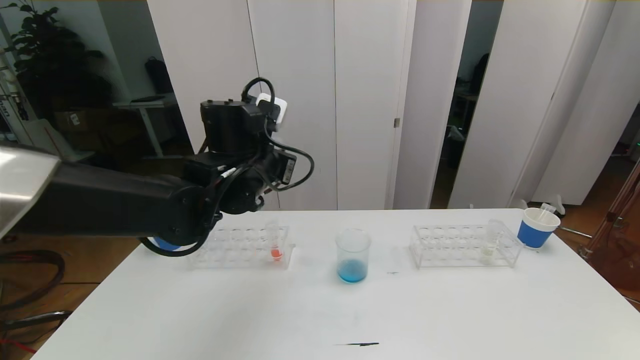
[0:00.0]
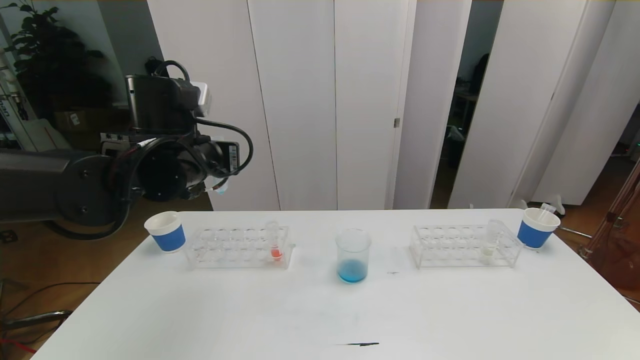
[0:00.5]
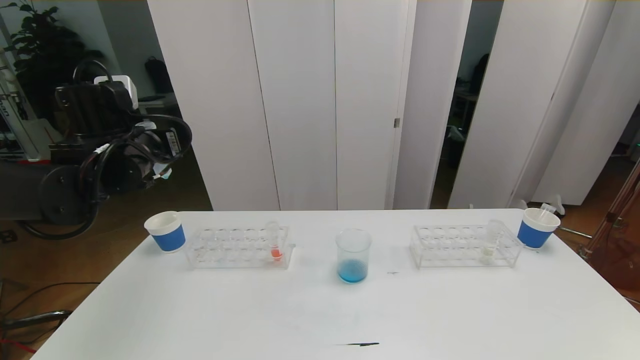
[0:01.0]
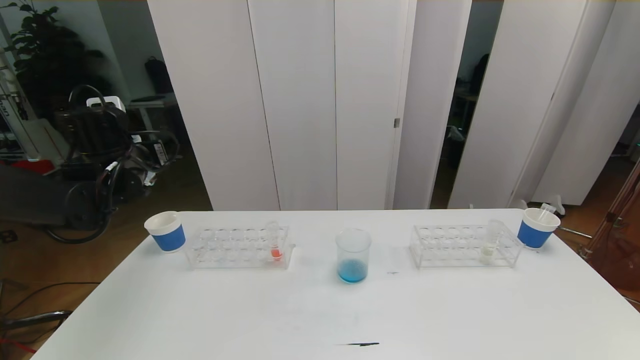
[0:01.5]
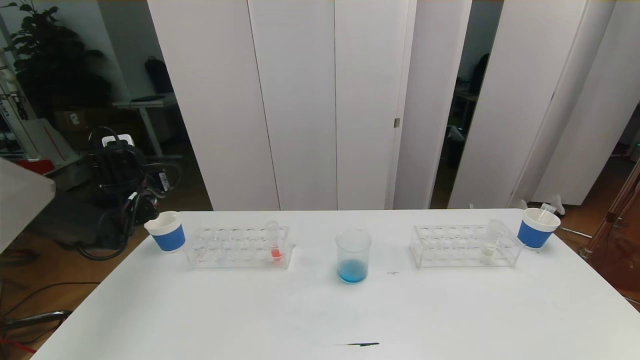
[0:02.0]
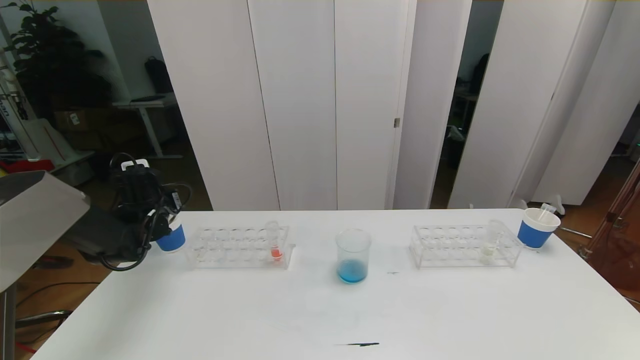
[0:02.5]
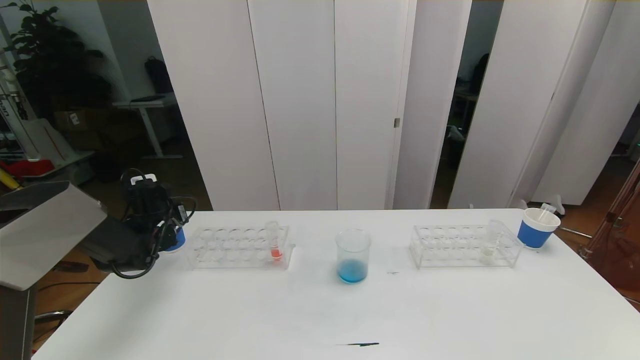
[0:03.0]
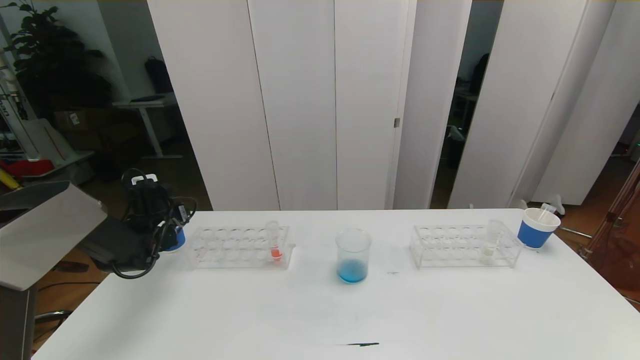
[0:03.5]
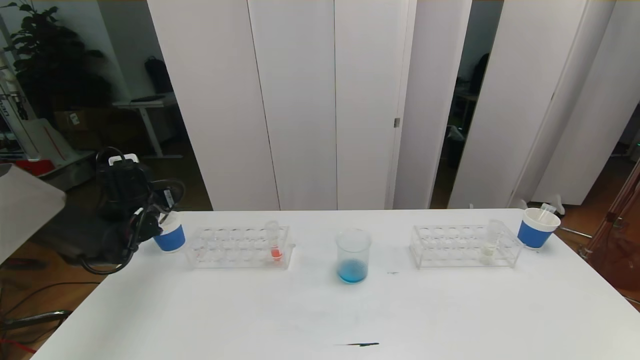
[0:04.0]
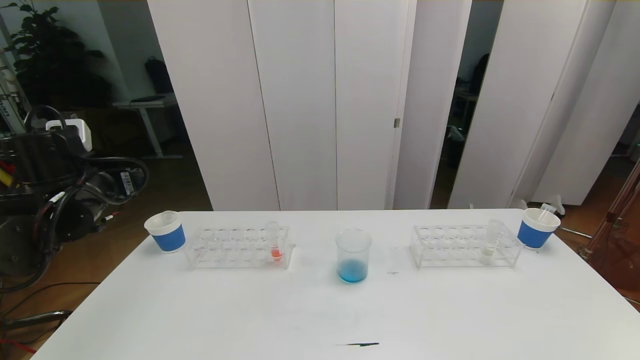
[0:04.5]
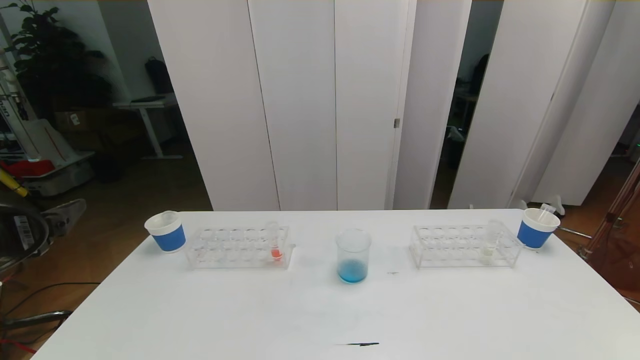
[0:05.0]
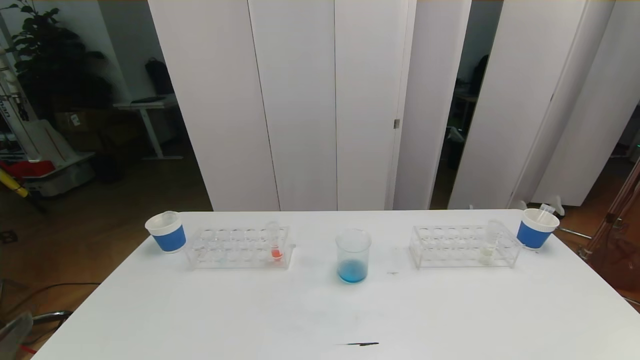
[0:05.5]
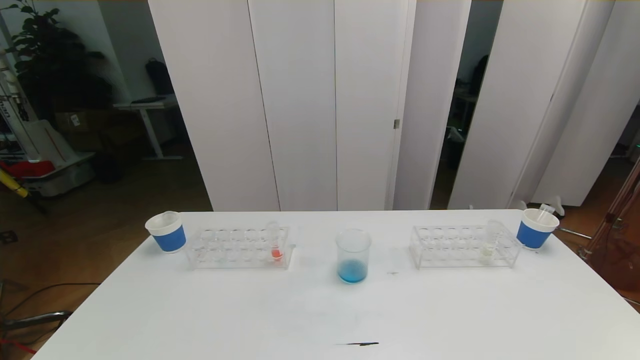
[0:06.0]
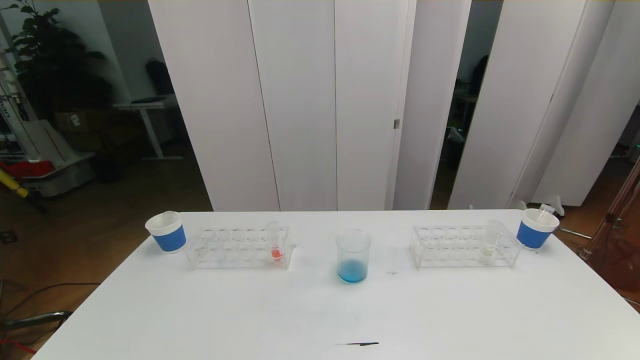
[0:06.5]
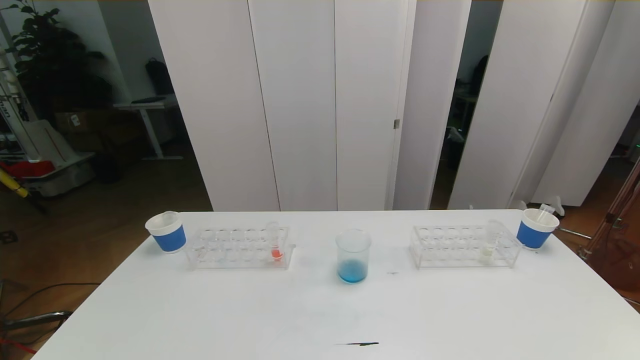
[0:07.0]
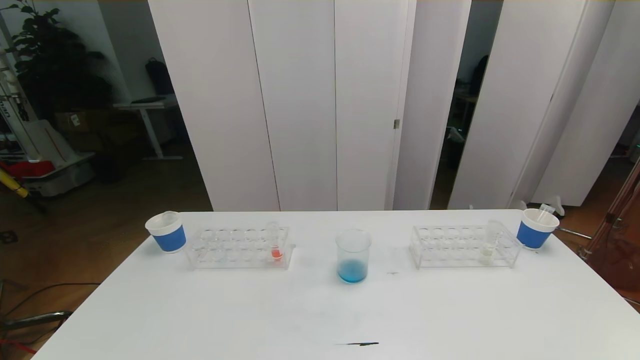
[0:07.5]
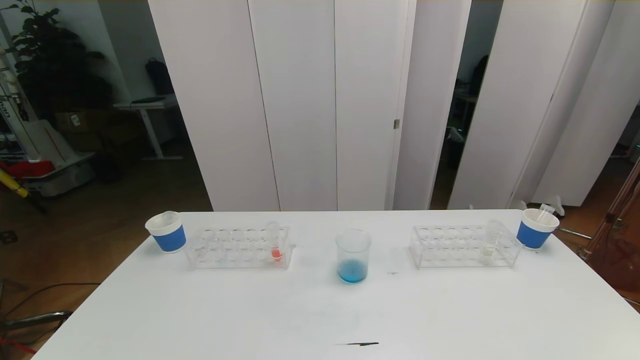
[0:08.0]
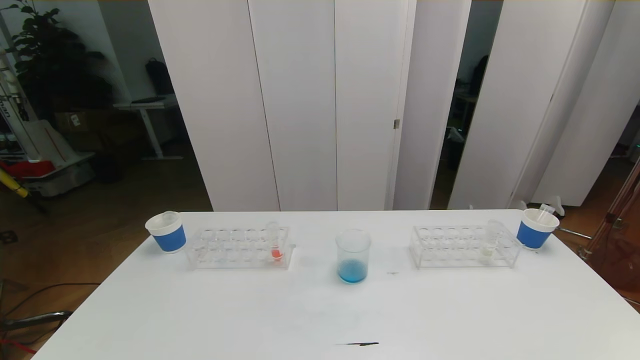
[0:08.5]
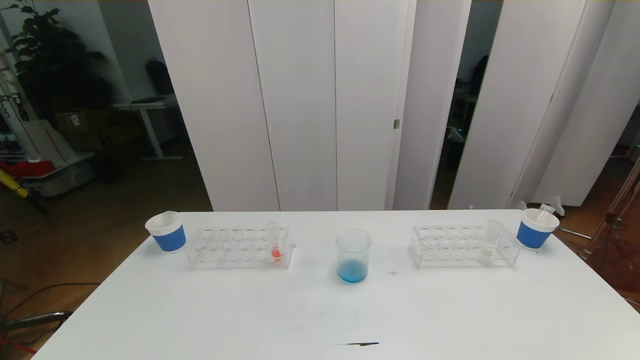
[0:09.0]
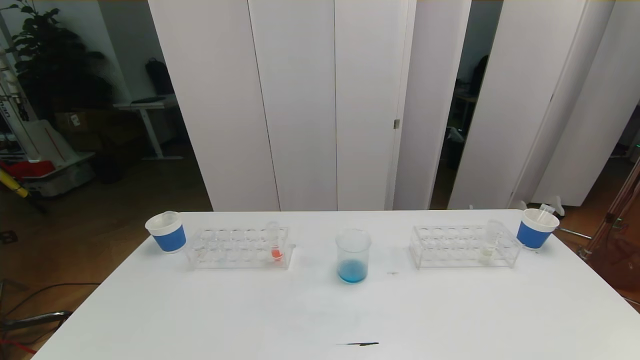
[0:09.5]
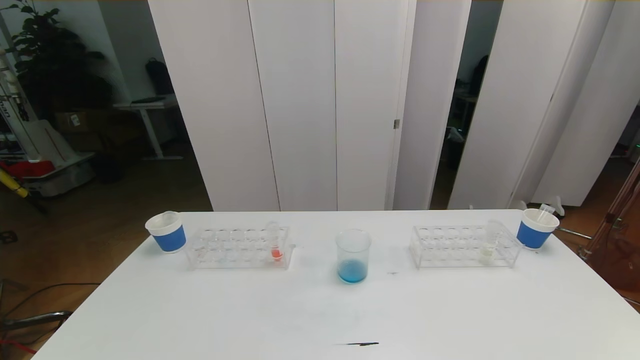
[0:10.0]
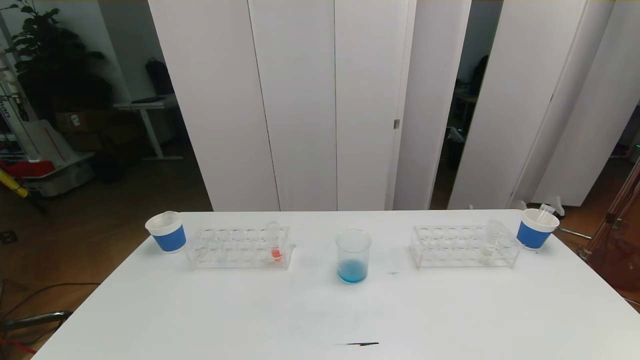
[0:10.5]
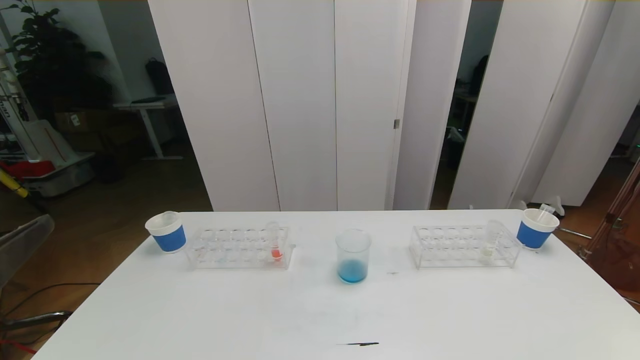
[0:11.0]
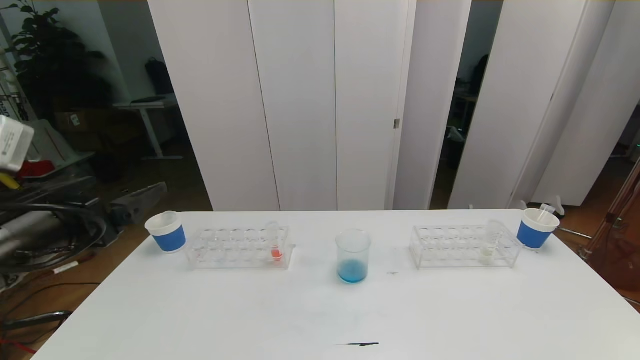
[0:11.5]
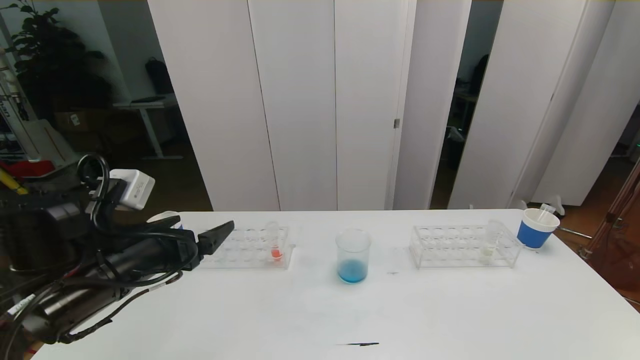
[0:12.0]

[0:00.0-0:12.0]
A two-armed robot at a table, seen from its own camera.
Task of the whole recording: pick up the test tube with red pigment the test tube with blue pigment and the test tube with white pigment by grippers and pour them into the beaker.
Step, 0:00.0 to 0:06.5: Pour the blue reagent into the graduated cylinder and place the test tube into the paper cup.
0:00.0 to 0:02.0: The left gripper heads to the left, covering about 25 cm.
0:02.0 to 0:04.0: The left gripper reaches approximately 10 cm downward, then returns, and opens.
0:04.0 to 0:06.0: The left gripper travels backward by approximately 40 cm.
0:08.0 to 0:10.0: Both grippers stay put.
0:10.0 to 0:12.0: The left gripper travels forward by about 25 cm.

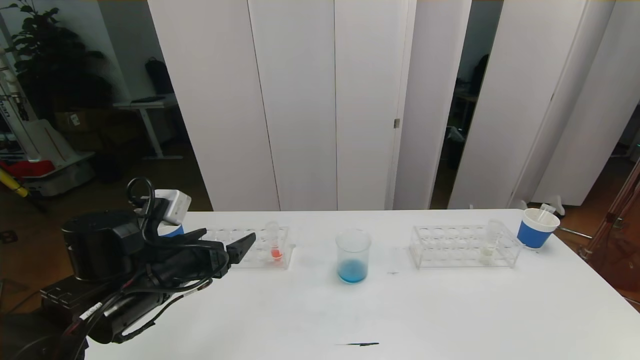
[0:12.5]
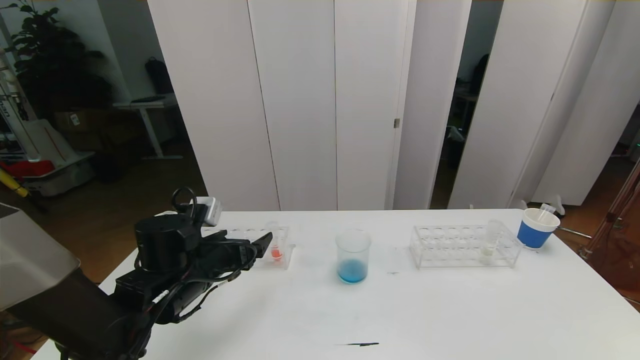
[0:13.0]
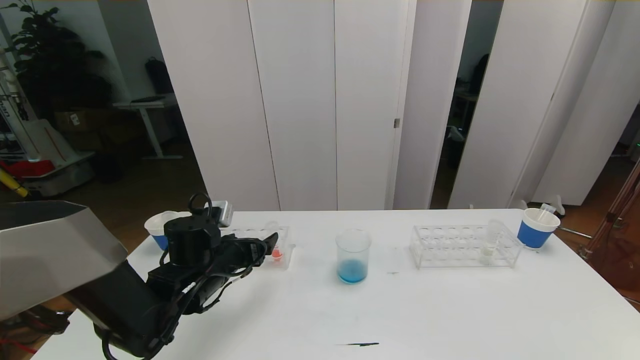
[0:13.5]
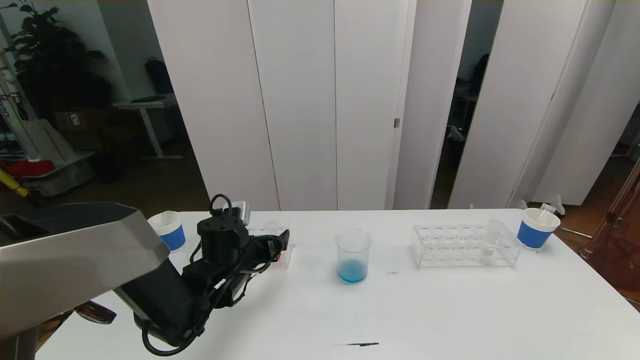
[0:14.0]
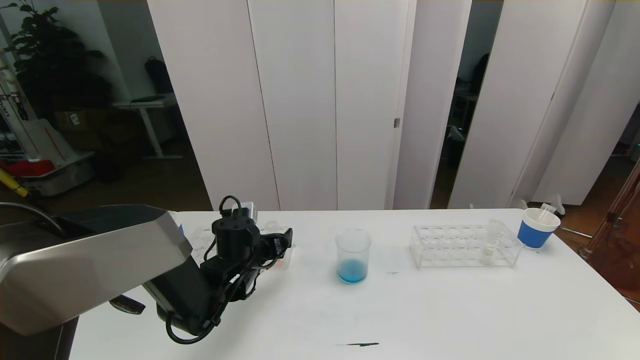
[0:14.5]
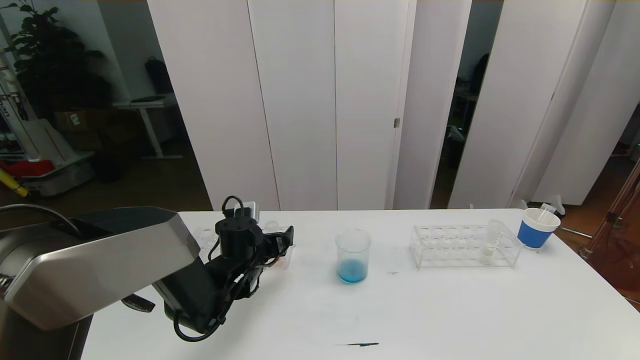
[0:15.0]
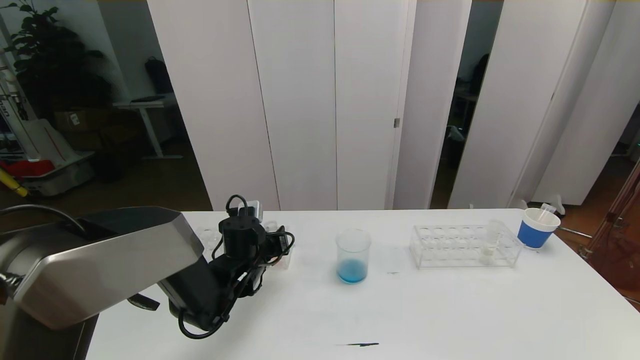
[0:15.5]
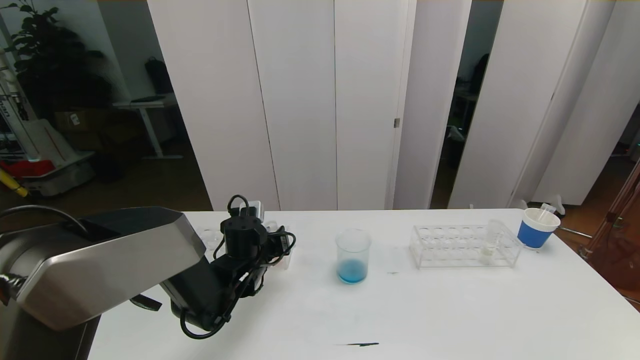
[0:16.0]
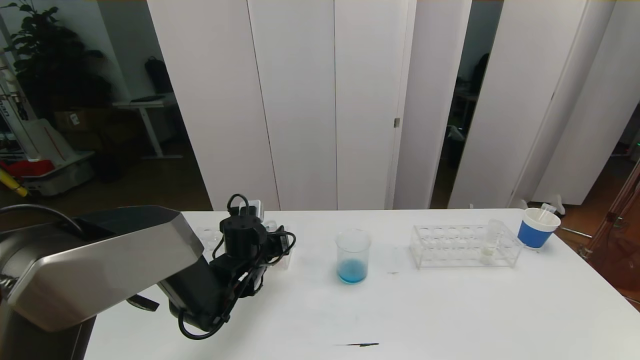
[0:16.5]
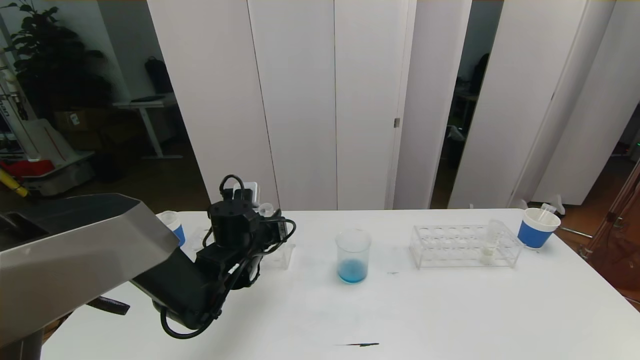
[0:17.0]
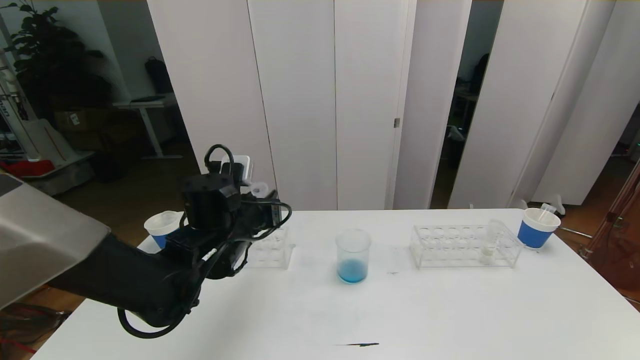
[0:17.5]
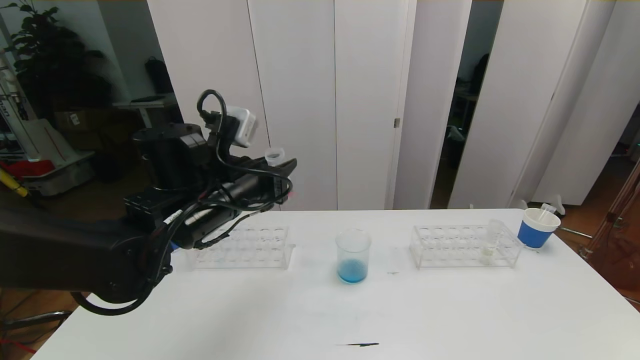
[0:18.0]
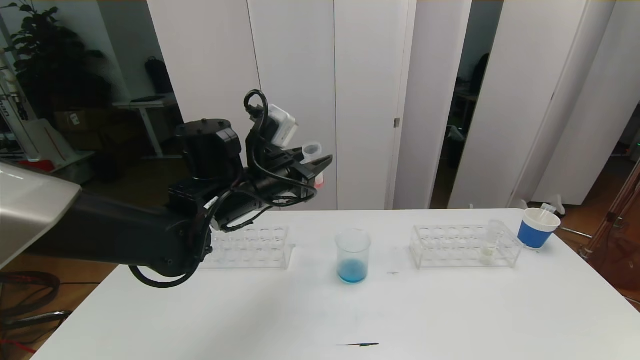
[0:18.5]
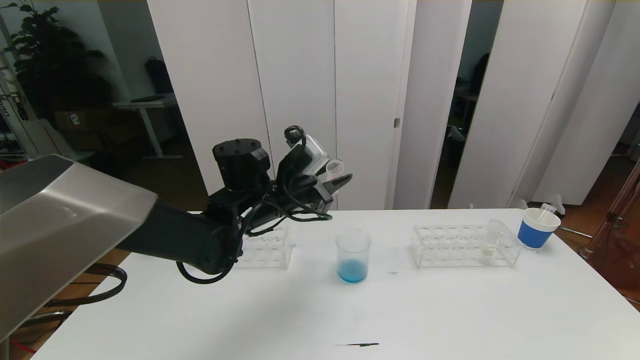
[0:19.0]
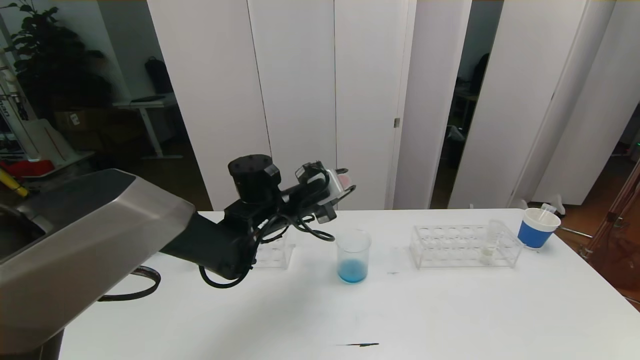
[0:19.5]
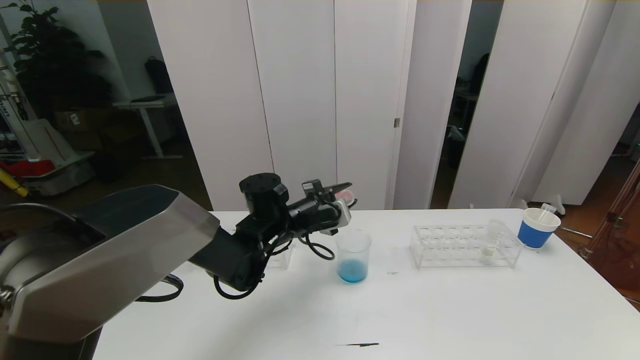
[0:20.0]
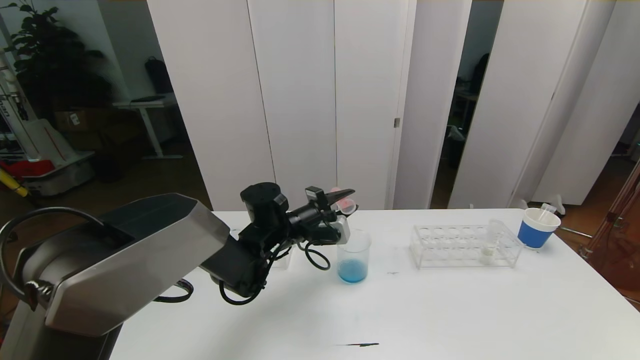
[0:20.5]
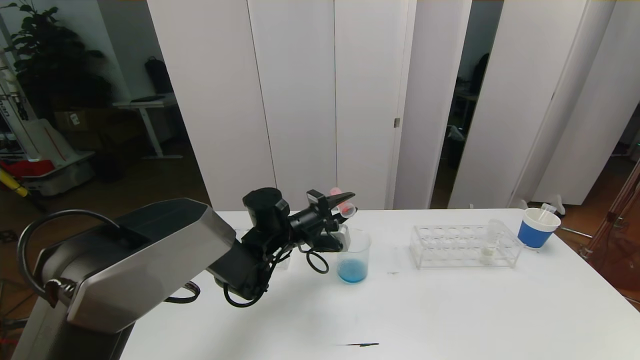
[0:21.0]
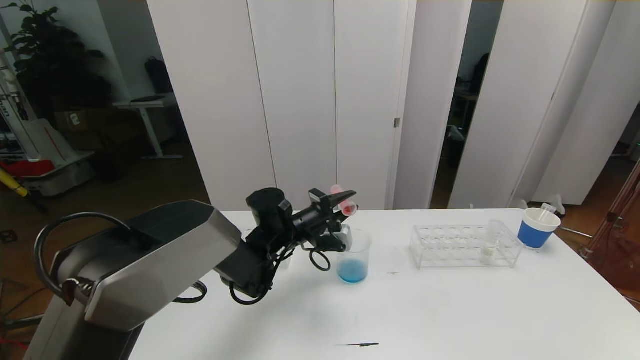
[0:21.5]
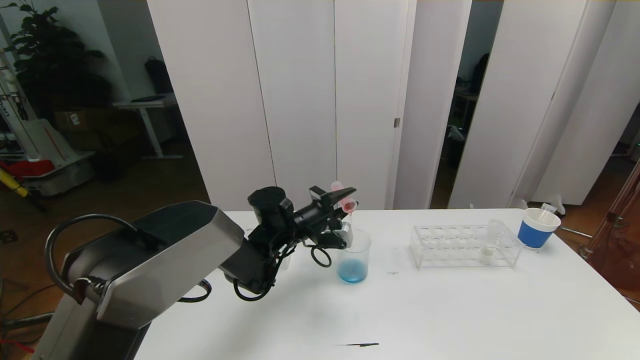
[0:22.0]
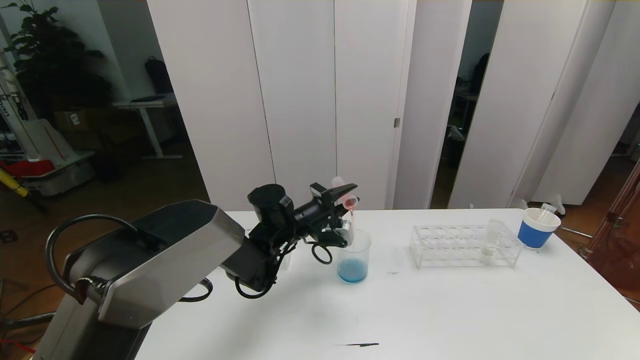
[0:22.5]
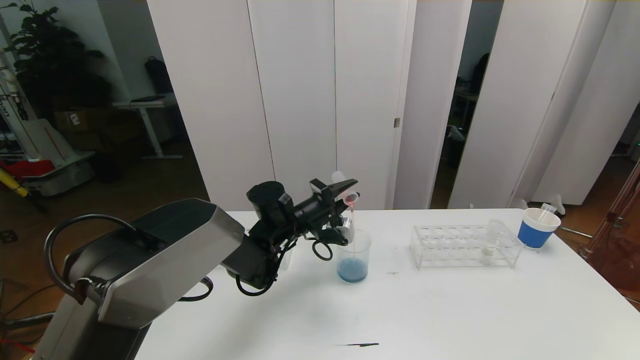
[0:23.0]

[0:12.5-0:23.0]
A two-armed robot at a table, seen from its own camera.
Task of the whole recording: pick up the test tube with red pigment the test tube with blue pigment and the test tube with white pigment by grippers and pour them into the beaker.
0:12.5 to 0:14.5: The left gripper moves forward, downward and to the right, roughly 15 cm.
0:14.5 to 0:16.5: The left gripper closes its fingers.
0:16.5 to 0:19.0: The left gripper shifts about 15 cm upward.
0:19.0 to 0:21.0: The left gripper goes roughly 10 cm downward.
0:21.0 to 0:23.0: There are only small adjustments of the grippers.
